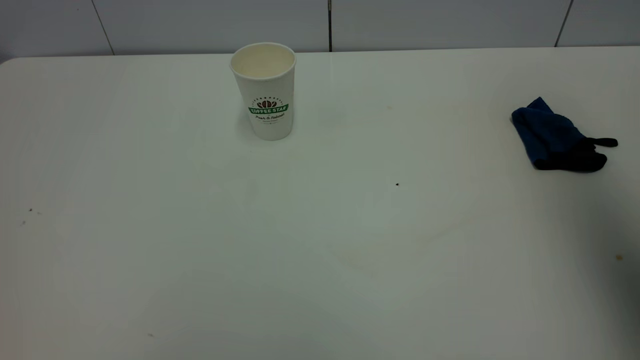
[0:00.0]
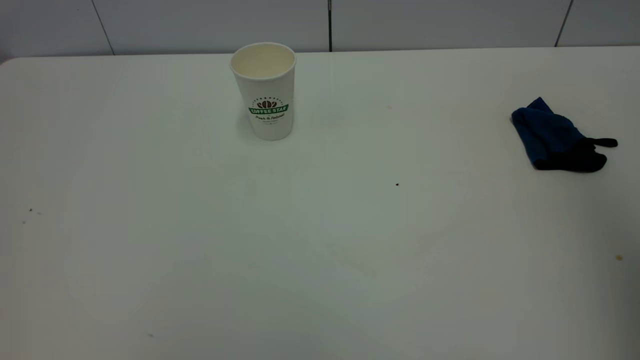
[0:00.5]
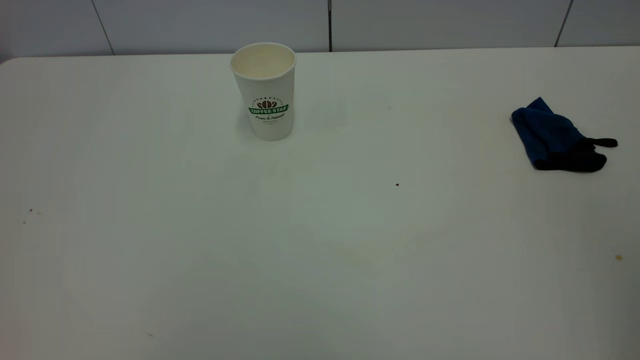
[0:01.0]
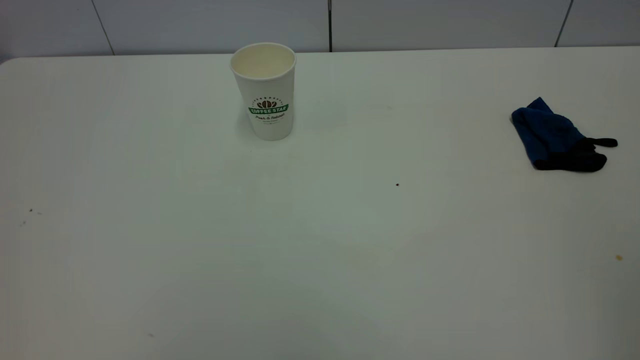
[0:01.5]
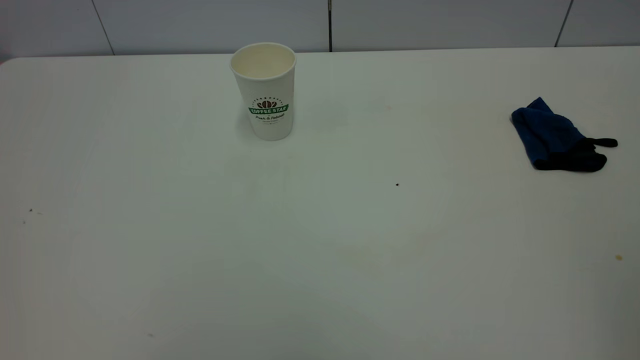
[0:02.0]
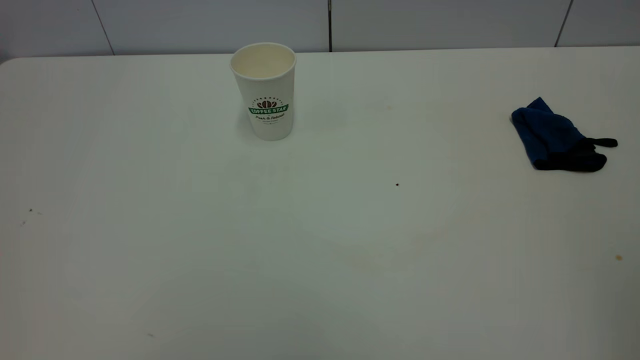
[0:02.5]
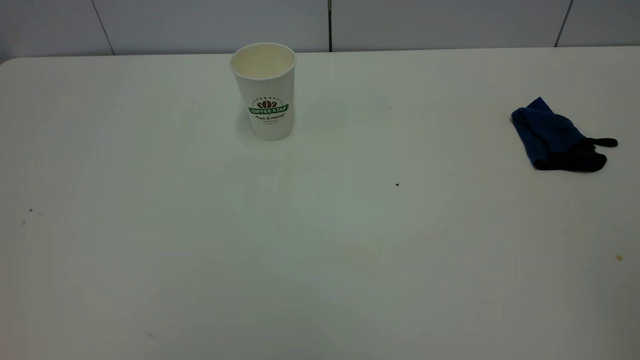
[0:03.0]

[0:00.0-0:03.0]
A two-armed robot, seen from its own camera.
Task of the whole recording: the left gripper pick up the fallen cup and place it upright, the right gripper grasp the blue rag and wipe the tea stain on the table, the right gripper put the blue rag back in its original position.
0:00.0 to 0:01.5: The right gripper travels backward by some 25 cm.

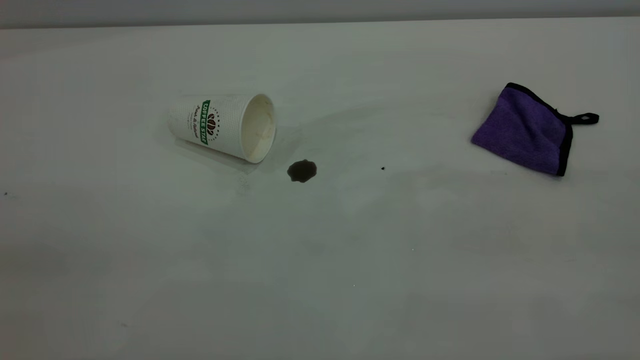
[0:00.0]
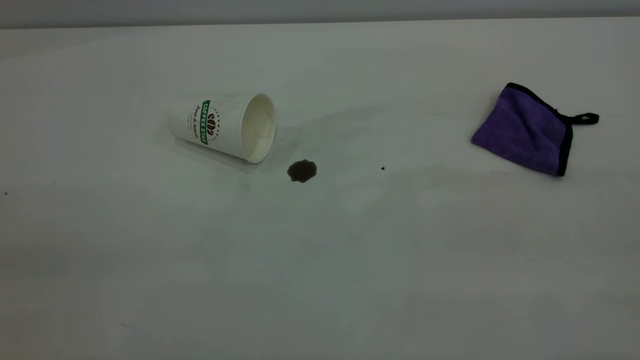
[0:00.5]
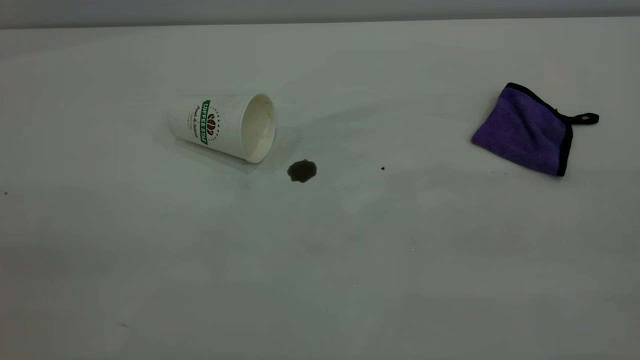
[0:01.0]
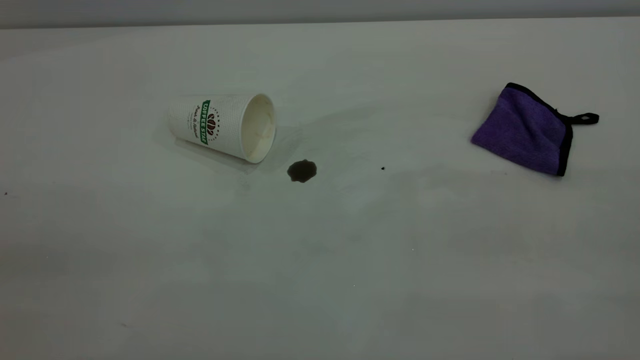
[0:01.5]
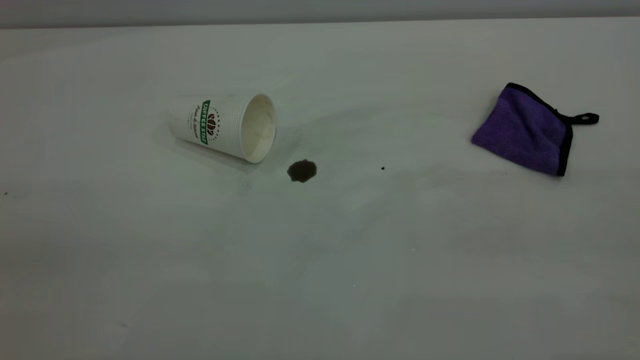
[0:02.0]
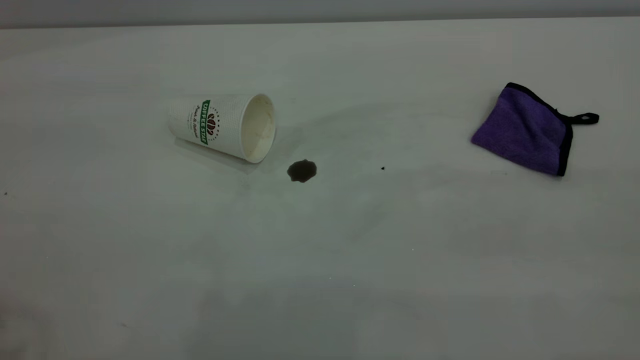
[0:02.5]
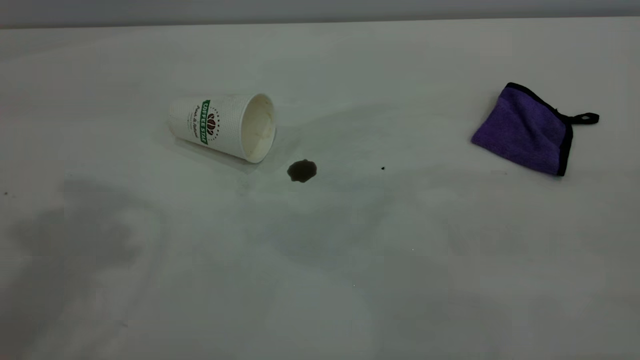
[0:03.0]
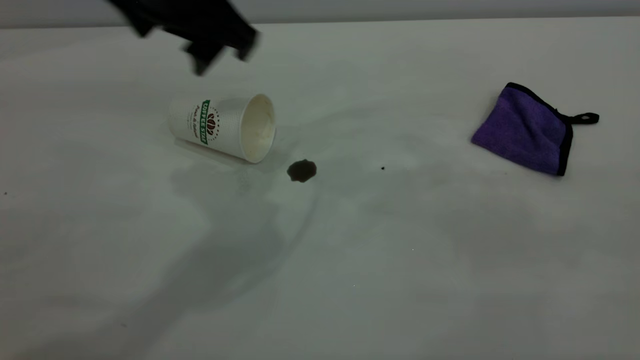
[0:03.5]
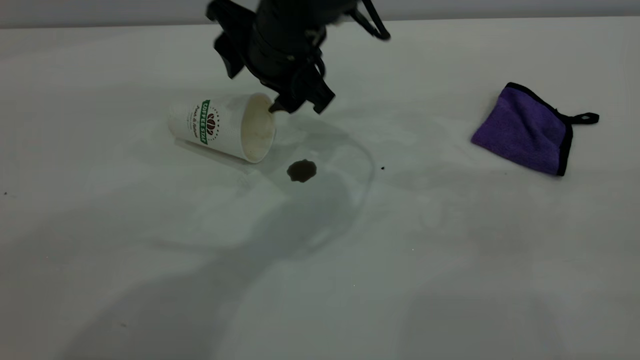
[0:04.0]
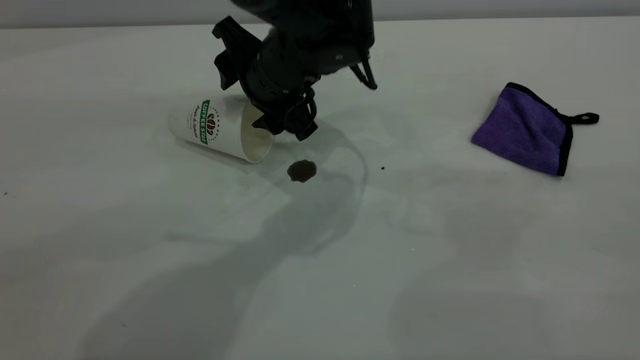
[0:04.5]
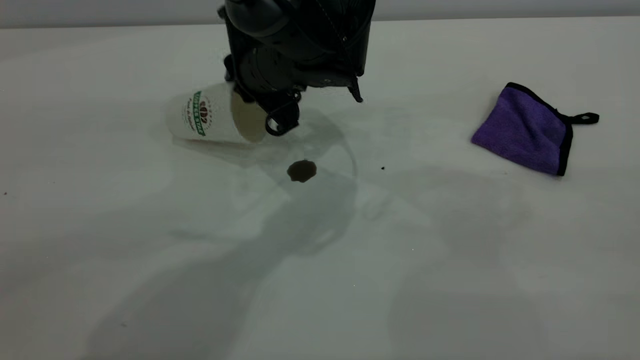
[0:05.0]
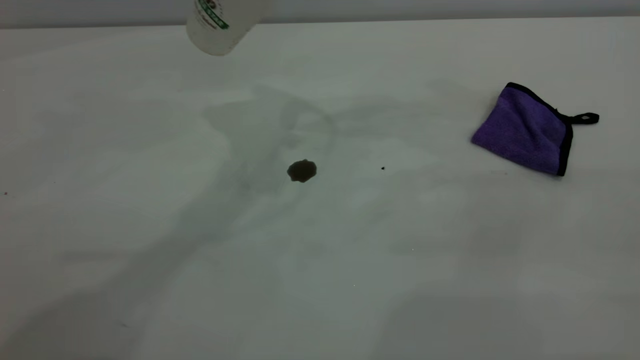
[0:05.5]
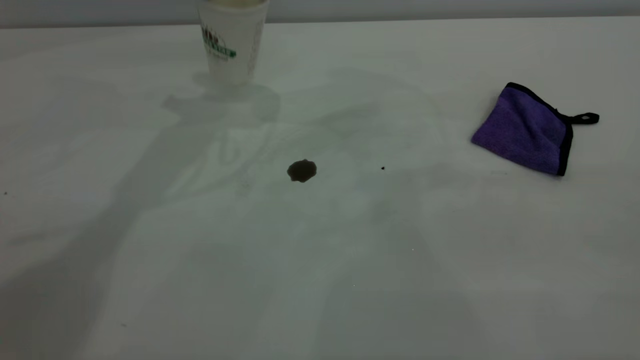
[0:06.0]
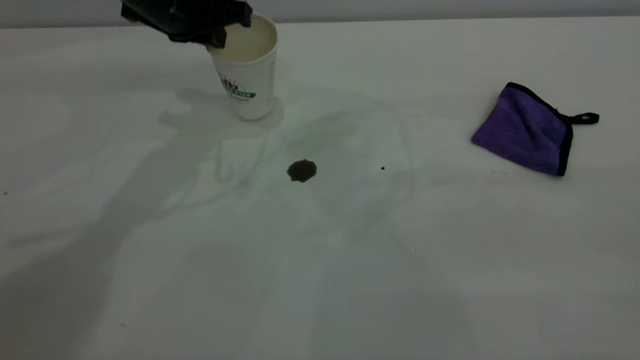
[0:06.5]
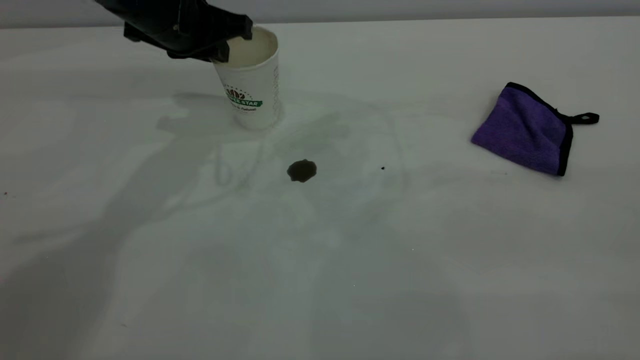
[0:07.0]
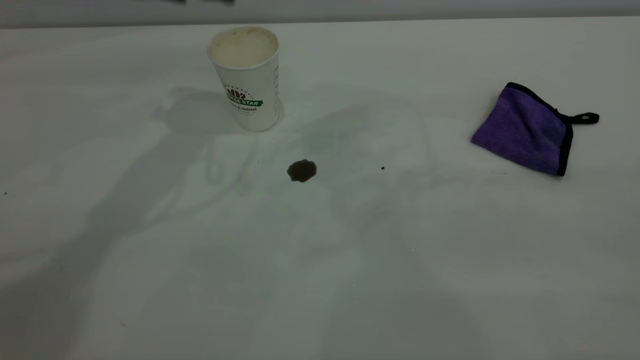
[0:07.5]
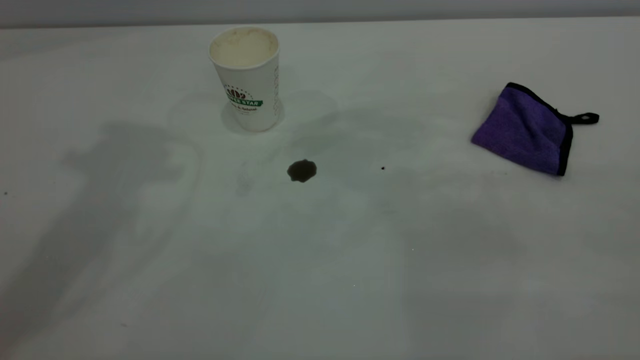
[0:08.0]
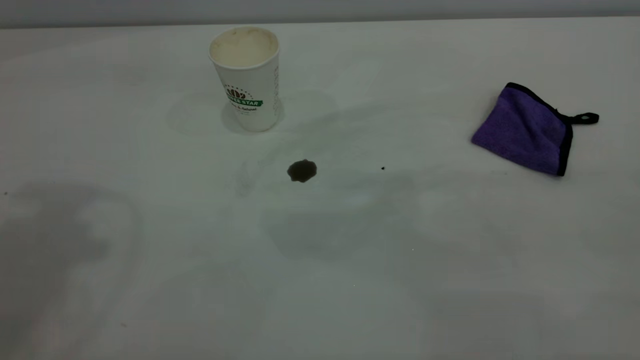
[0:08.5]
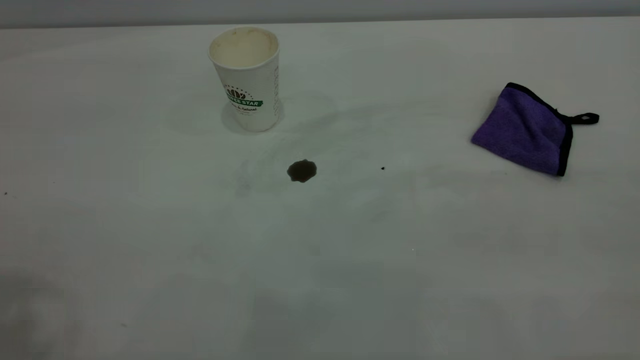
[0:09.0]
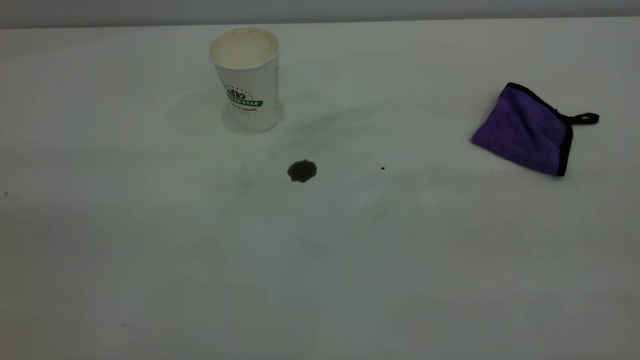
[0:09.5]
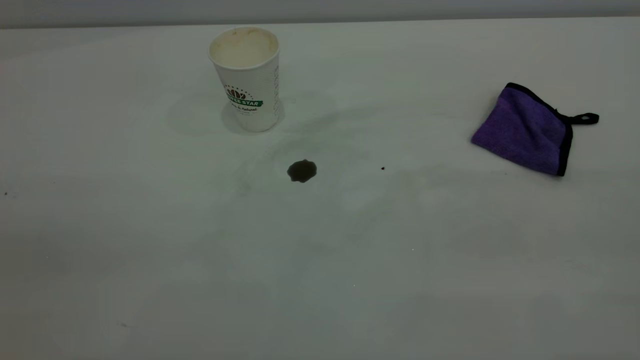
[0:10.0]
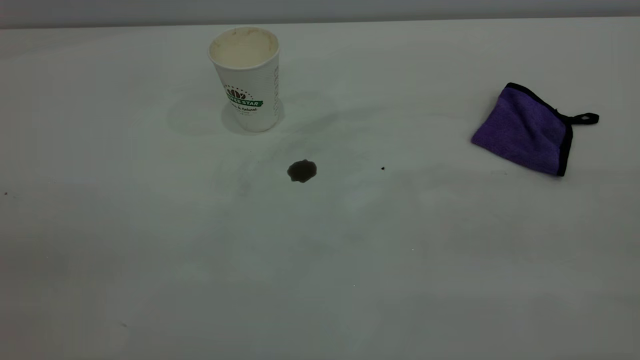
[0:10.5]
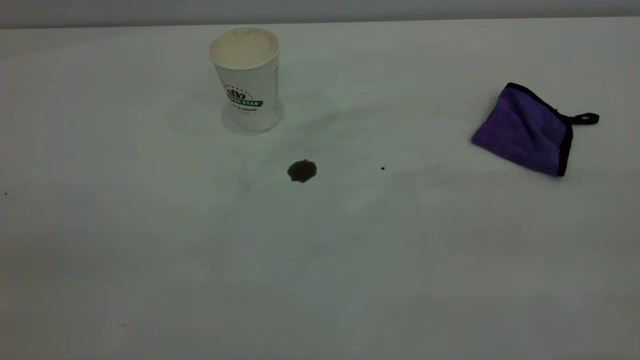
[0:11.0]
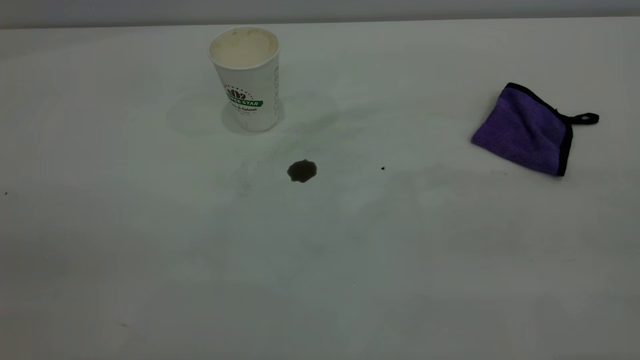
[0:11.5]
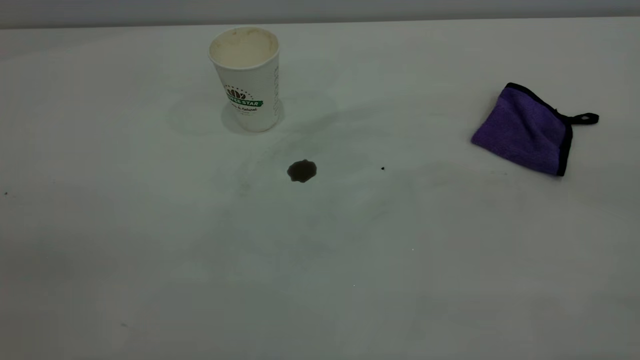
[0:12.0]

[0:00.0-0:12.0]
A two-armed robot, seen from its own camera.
Task of the whole recording: the left gripper pick up the fallen cup and place it upright, the right gripper grasp the purple rag and wipe the coffee stain on the table, the right gripper put the purple rag back in its original position.
Step, 0:00.0 to 0:07.0: Stand the paper cup upright.
0:00.0 to 0:02.0: Both grippers stay put.
0:02.0 to 0:04.0: The left gripper shifts approximately 50 cm forward, to the right and downward, and opens up.
0:04.0 to 0:06.0: The left gripper moves up and down over approximately 20 cm, changing direction 2 times, and closes.
0:06.0 to 0:08.0: The left gripper moves upward and backward, approximately 20 cm, and opens its fingers.

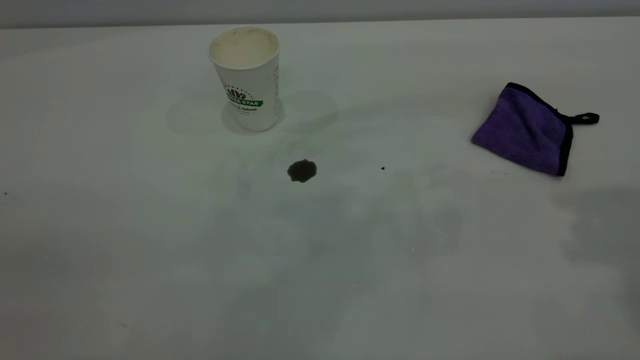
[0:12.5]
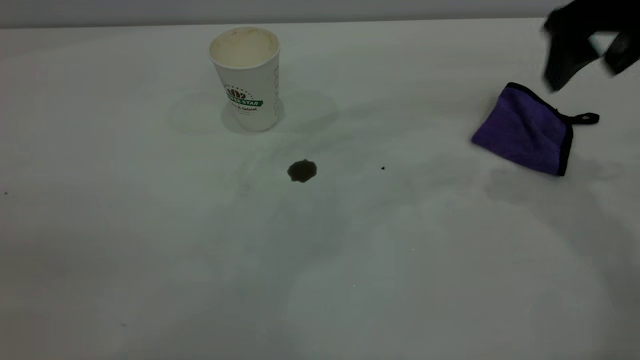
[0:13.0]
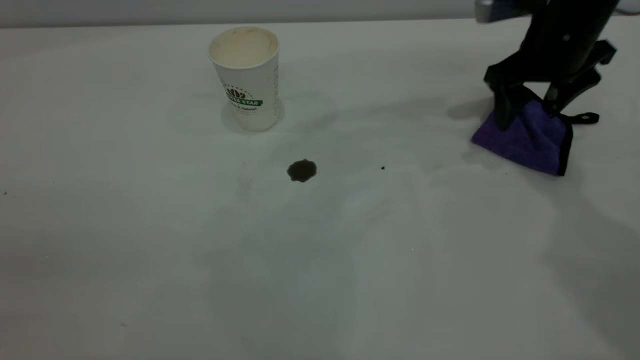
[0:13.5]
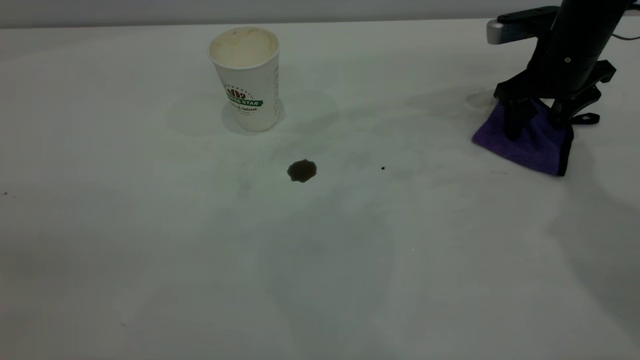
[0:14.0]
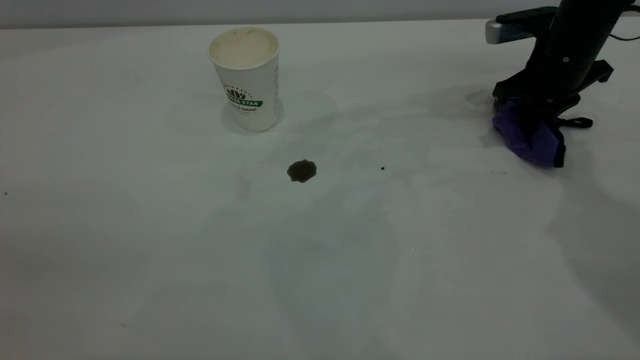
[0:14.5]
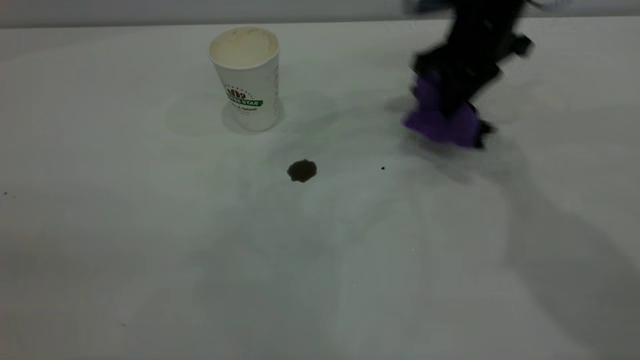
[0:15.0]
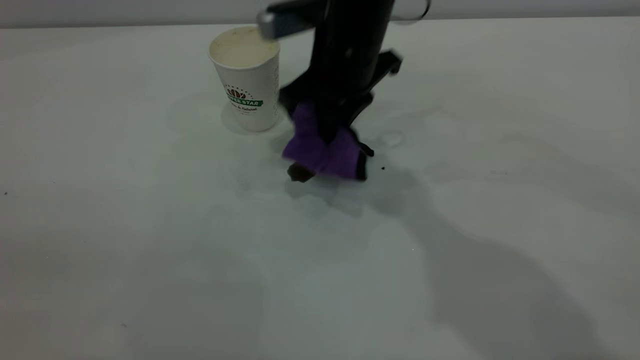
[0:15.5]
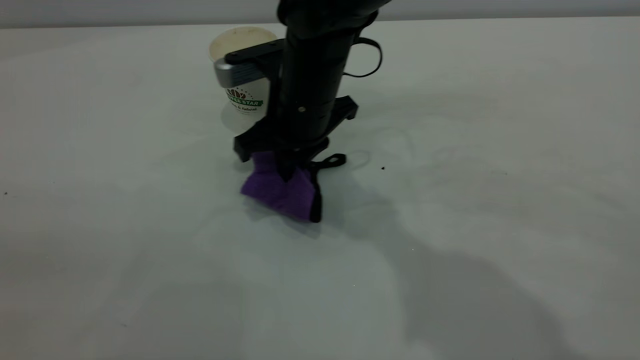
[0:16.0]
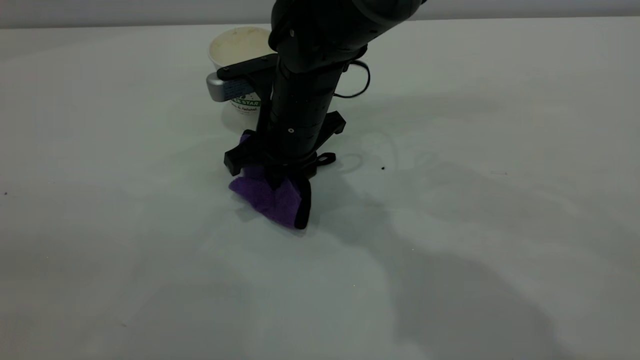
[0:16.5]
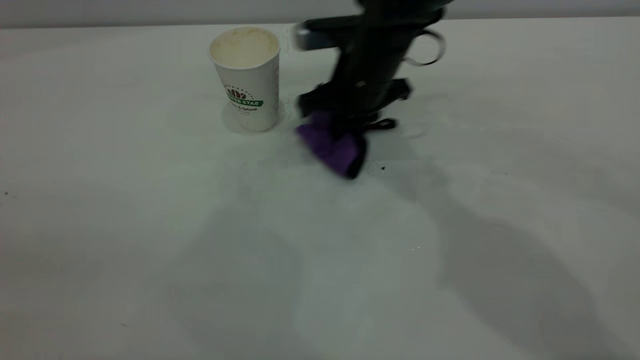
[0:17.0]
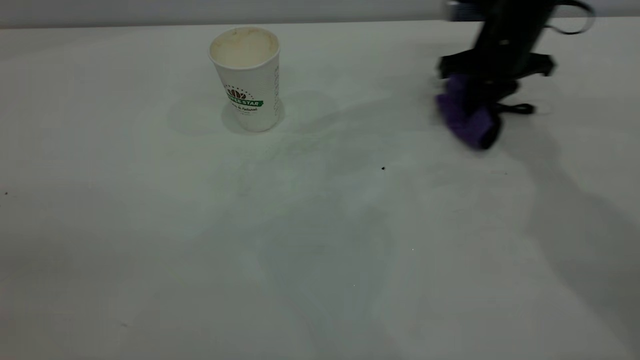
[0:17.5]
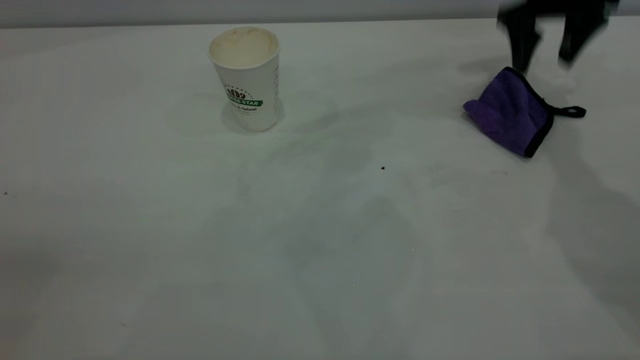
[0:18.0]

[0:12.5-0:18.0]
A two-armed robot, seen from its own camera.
Task of the whole recording: the left gripper pick up the fallen cup and place it upright, the right gripper grasp the purple rag and wipe the coffee stain on the table, the right gripper put the purple rag back in its original position.
Step, 0:12.5 to 0:18.0: Wipe the stains off the table with a rag.
0:12.5 to 0:14.5: The right gripper travels downward and forward by some 35 cm, and closes up.
0:14.5 to 0:16.0: The right gripper goes about 30 cm to the left.
0:16.0 to 0:18.0: The right gripper heads to the right and forward, covering roughly 35 cm, and opens its fingers.
